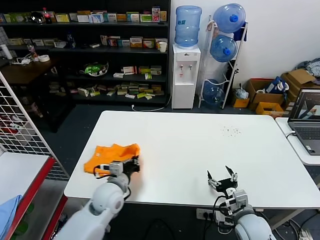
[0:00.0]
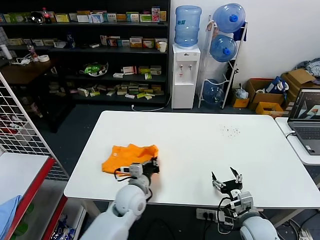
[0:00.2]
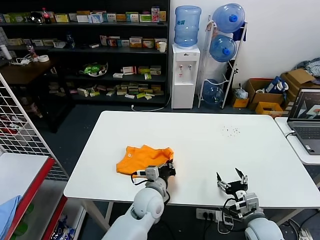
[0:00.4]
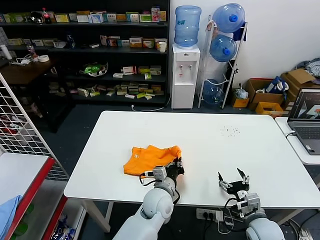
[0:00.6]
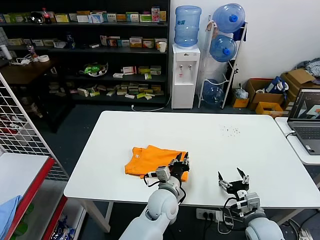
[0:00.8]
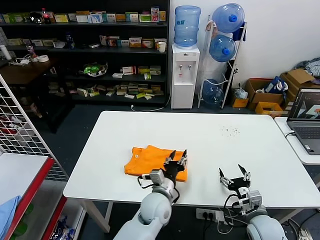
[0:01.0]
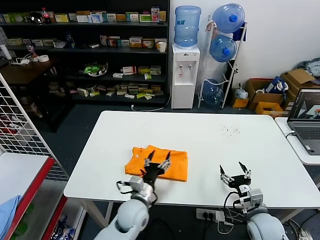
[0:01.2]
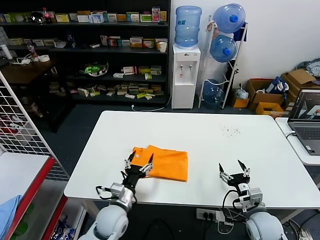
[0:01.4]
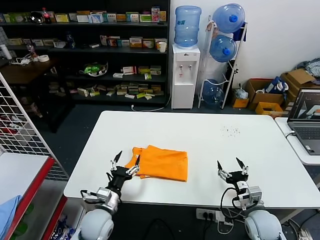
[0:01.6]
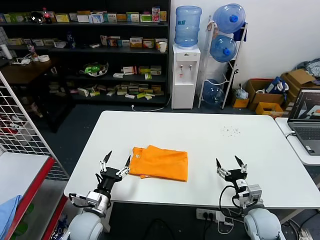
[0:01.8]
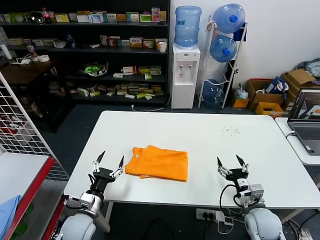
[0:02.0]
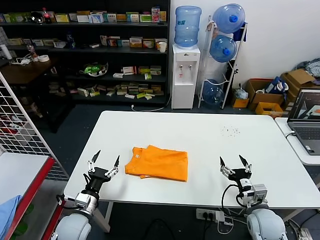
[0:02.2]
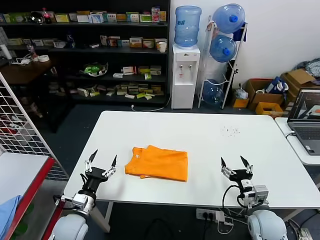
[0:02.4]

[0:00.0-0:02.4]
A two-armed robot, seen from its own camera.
Task of the whole recording: fold and organize the clothes.
0:00.0 to 0:01.2: The left gripper heads to the right, covering approximately 10 cm, and opens.
0:01.2 to 0:02.4: The left gripper travels to the left by some 20 cm.
